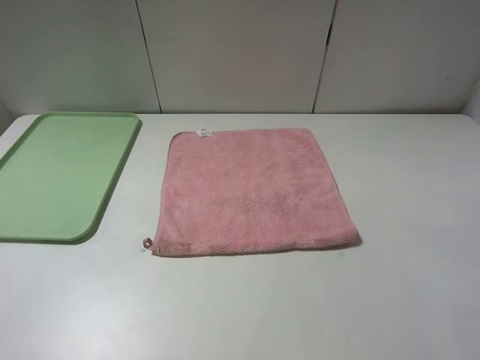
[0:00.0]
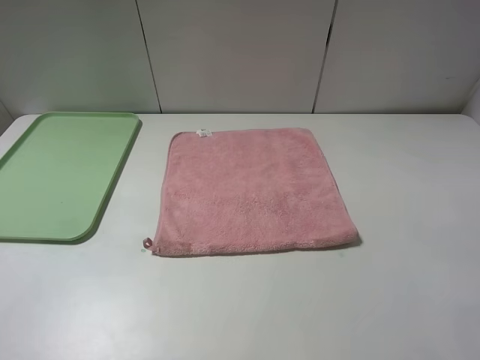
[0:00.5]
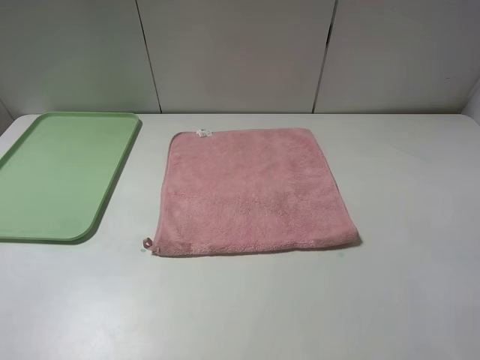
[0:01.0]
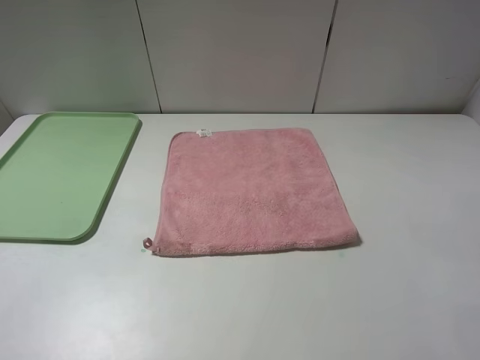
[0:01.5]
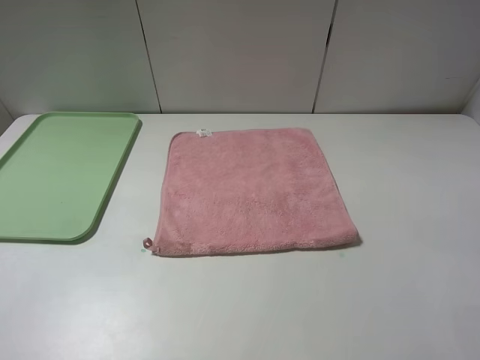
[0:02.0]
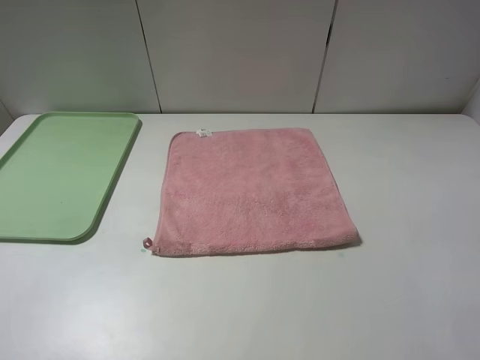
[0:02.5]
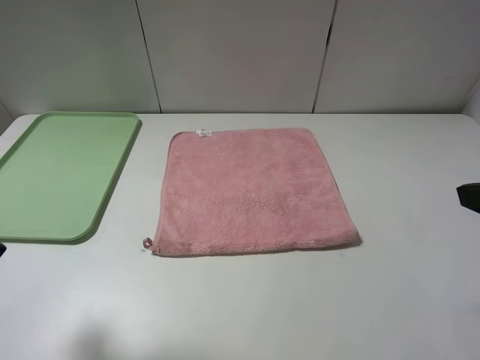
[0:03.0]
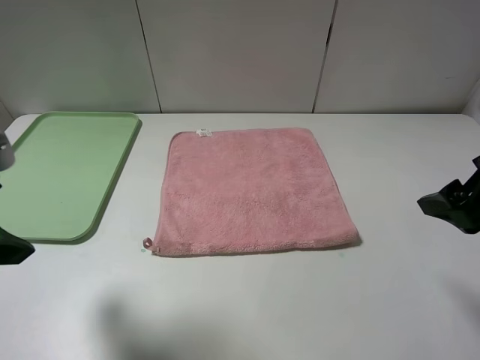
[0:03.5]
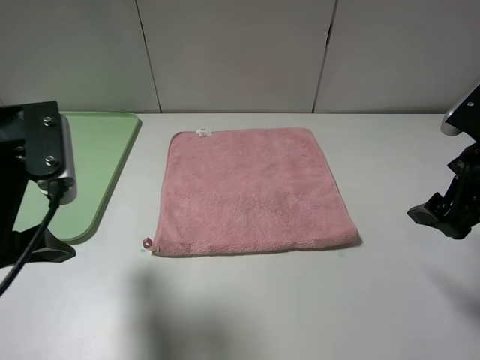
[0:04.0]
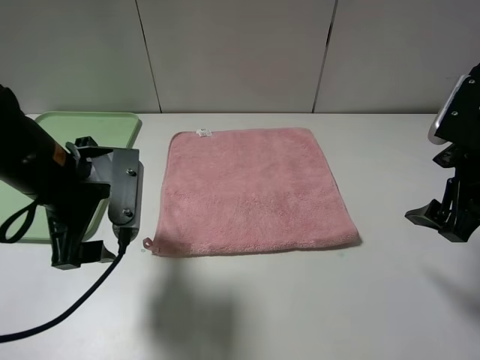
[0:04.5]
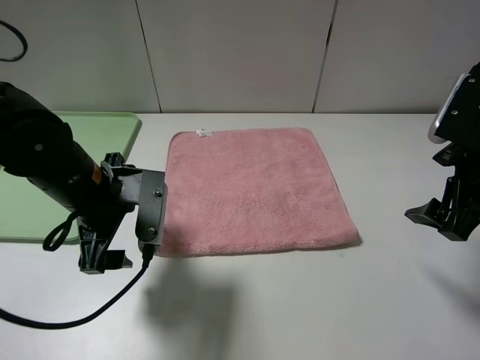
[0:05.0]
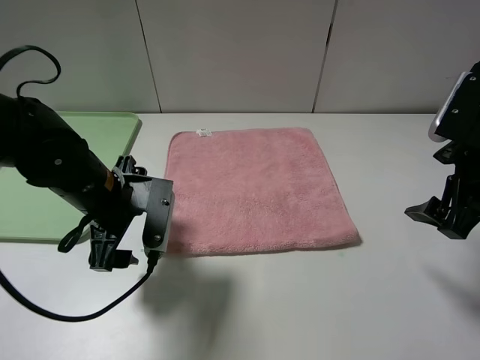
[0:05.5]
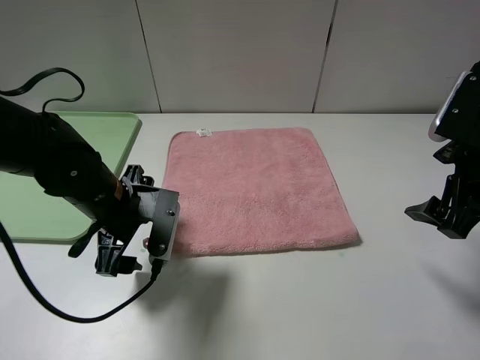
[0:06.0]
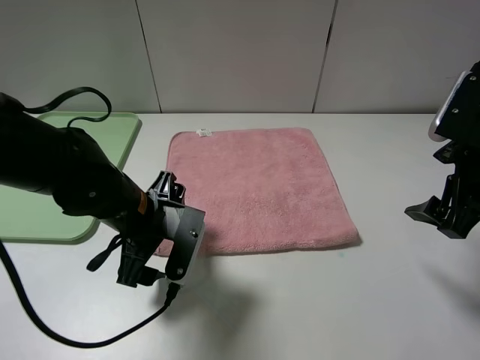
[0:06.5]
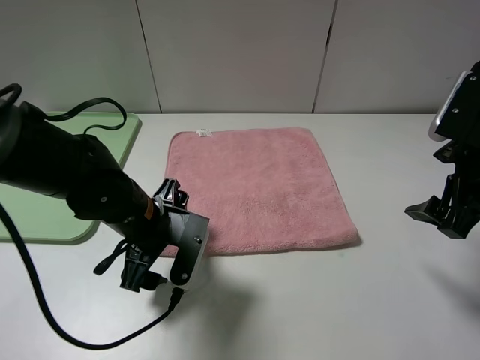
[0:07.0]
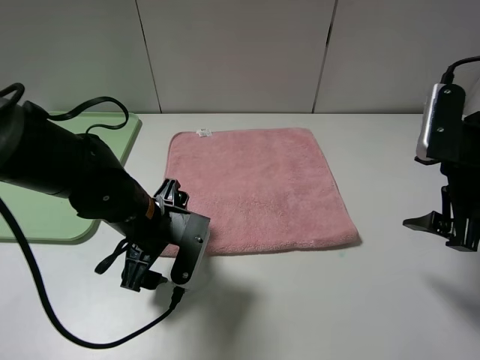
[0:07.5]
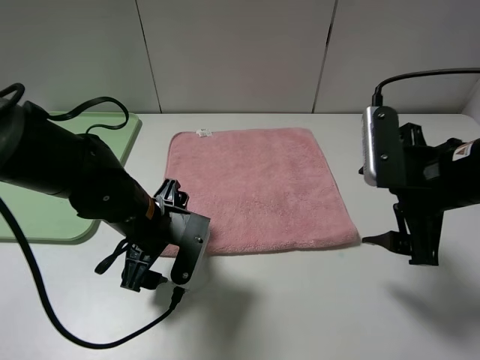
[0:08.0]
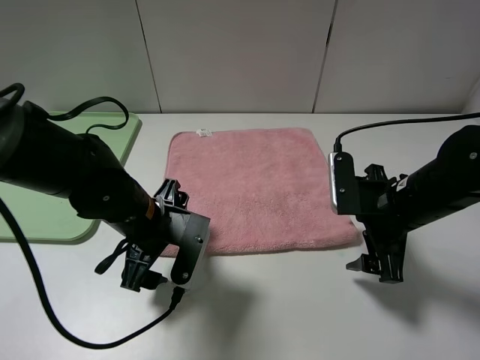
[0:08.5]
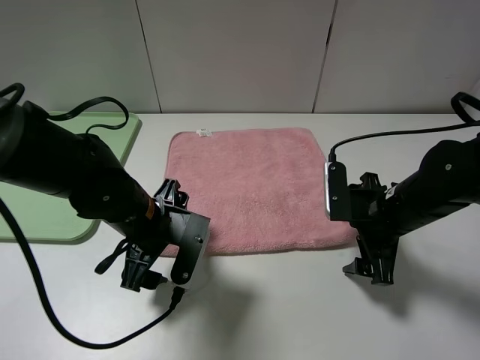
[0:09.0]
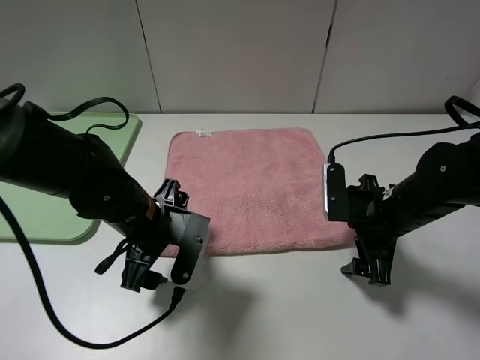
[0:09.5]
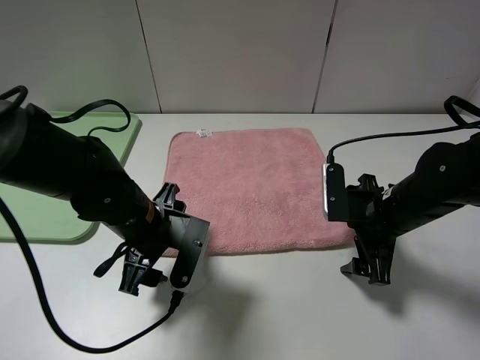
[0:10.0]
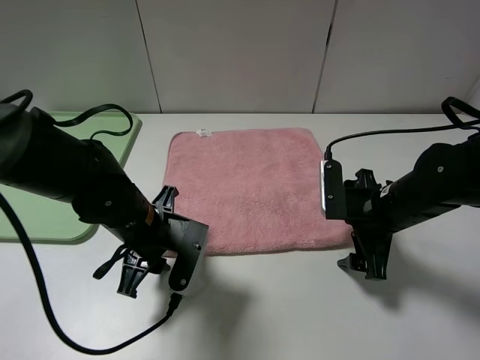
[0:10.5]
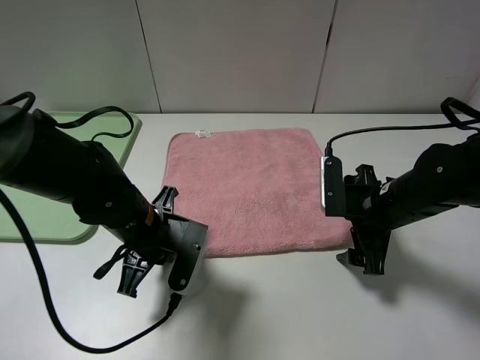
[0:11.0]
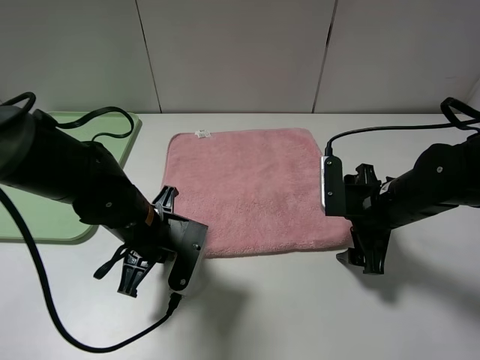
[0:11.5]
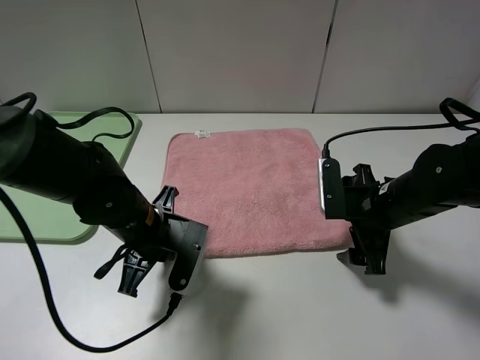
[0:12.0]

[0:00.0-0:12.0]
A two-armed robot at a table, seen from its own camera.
0:02.0 to 0:04.0: The left gripper shifts some 20 cm forward and to the right; the right gripper moves forward, some 20 cm.
0:04.0 to 0:06.0: The left gripper shifts approximately 15 cm downward, to the right and forward.
0:06.0 to 0:08.0: The right gripper heads to the left, covering approximately 5 cm.
0:08.0 to 0:10.0: The right gripper is displaced downward by approximately 10 cm.
0:10.0 to 0:12.0: The left gripper closes its fingers.

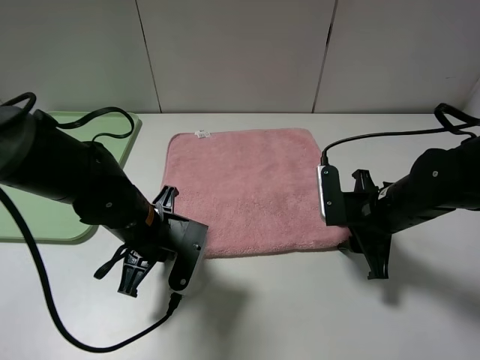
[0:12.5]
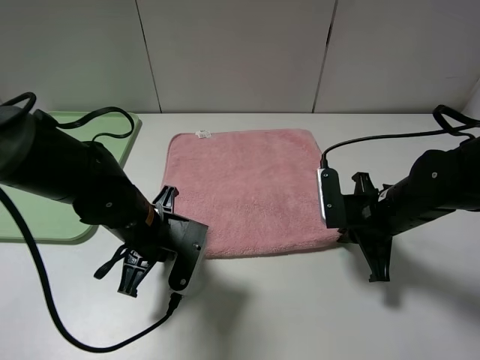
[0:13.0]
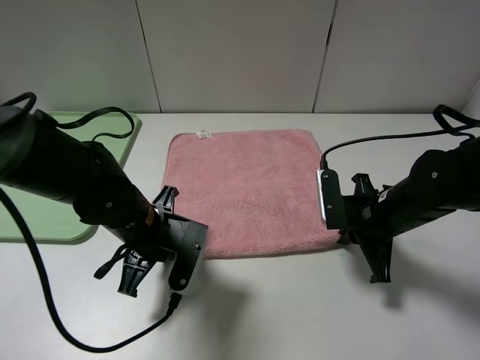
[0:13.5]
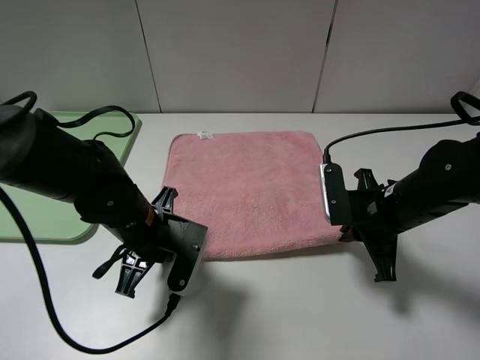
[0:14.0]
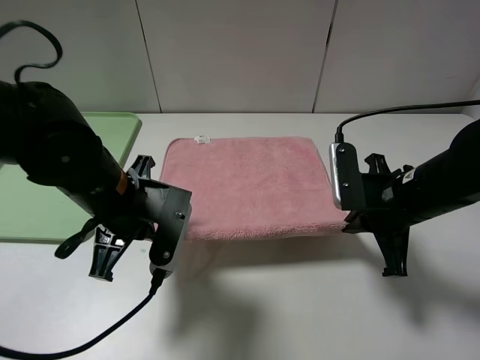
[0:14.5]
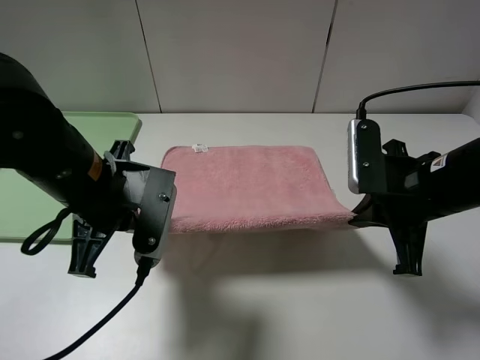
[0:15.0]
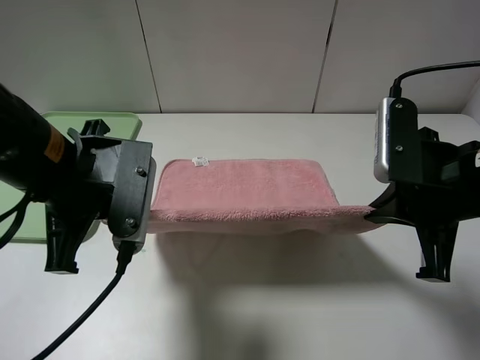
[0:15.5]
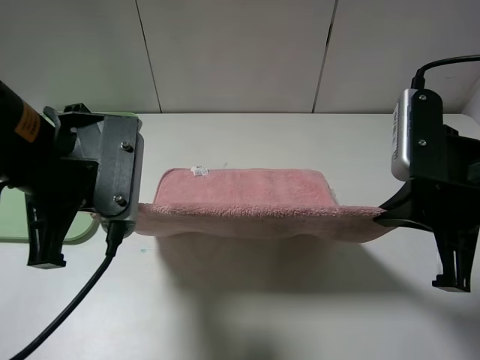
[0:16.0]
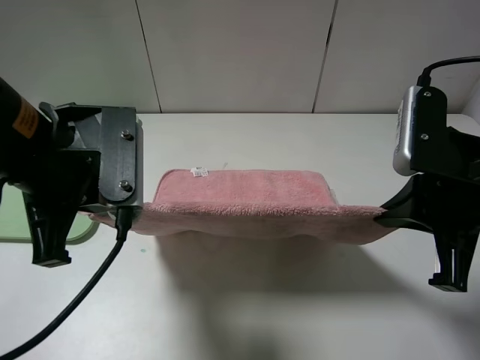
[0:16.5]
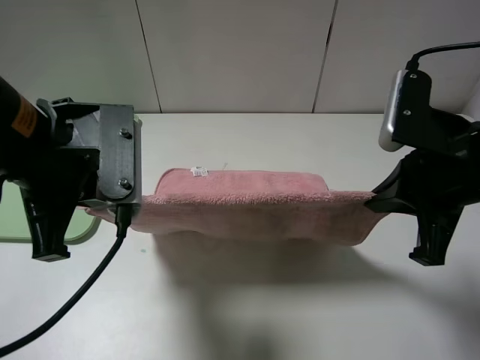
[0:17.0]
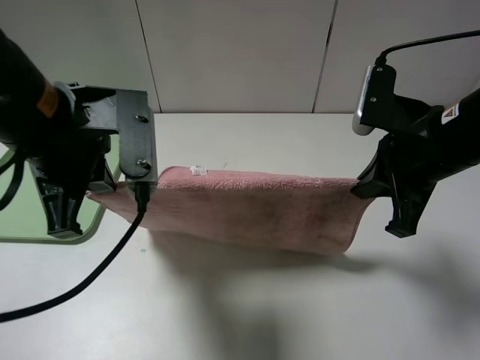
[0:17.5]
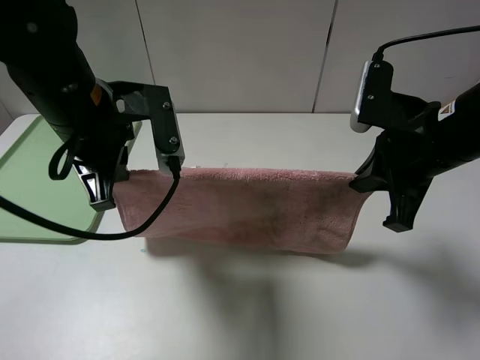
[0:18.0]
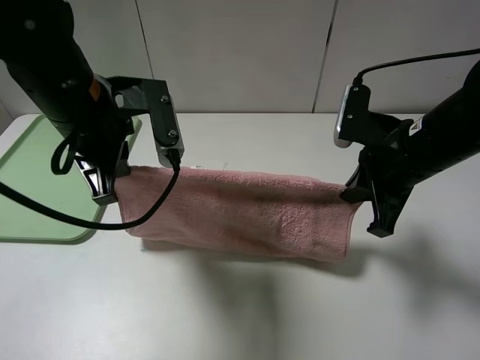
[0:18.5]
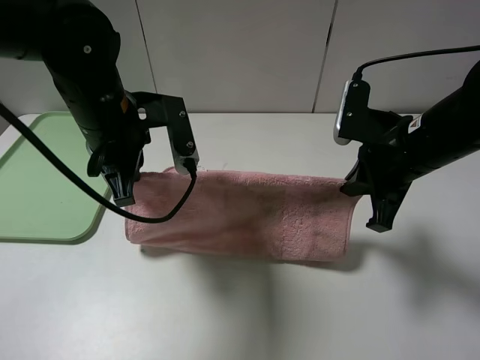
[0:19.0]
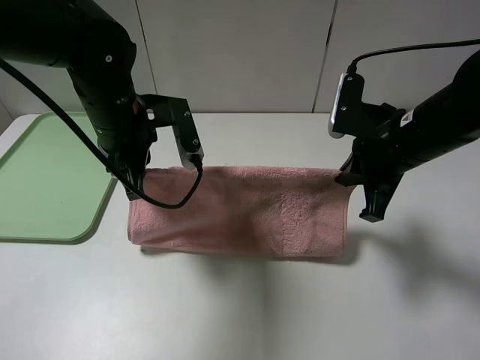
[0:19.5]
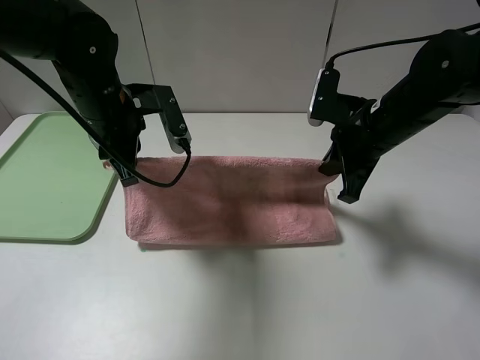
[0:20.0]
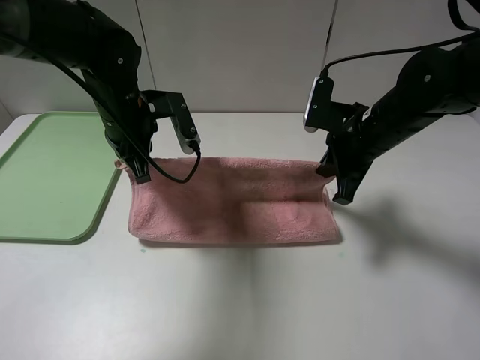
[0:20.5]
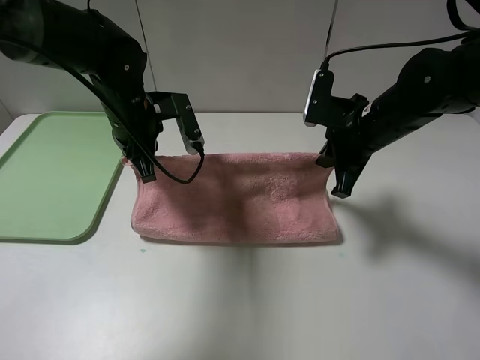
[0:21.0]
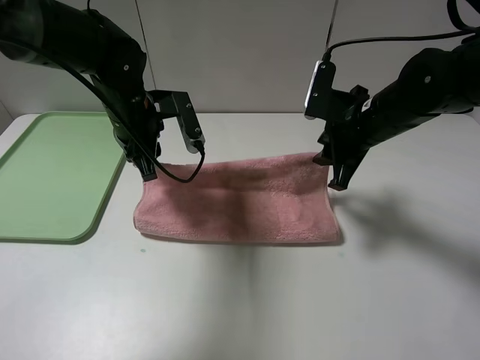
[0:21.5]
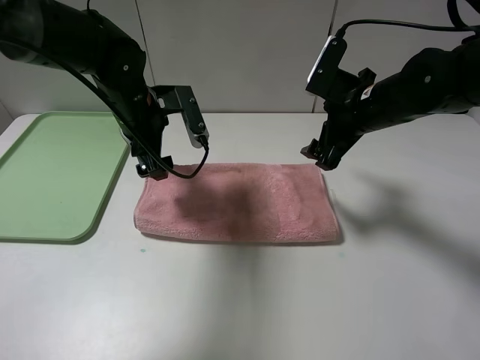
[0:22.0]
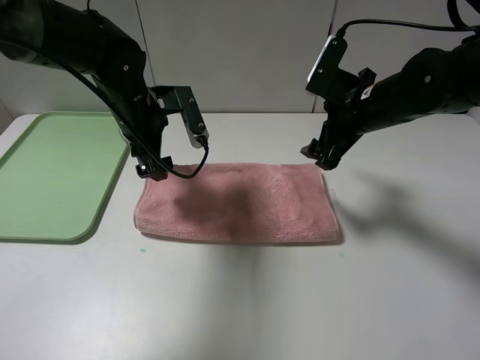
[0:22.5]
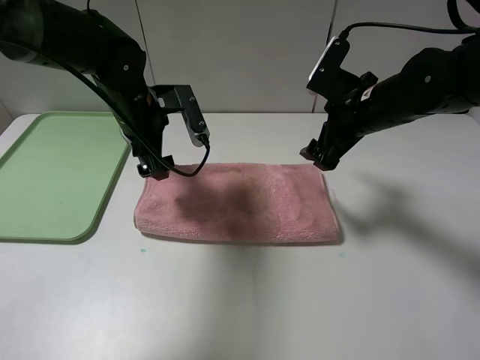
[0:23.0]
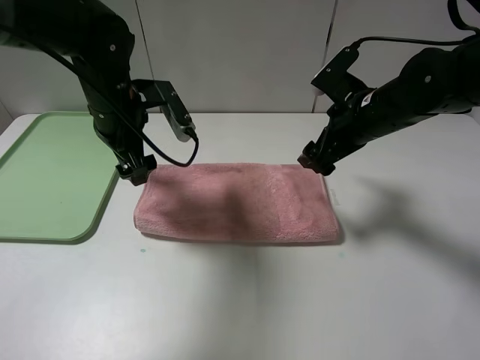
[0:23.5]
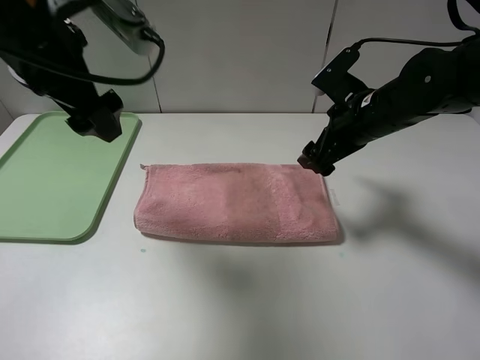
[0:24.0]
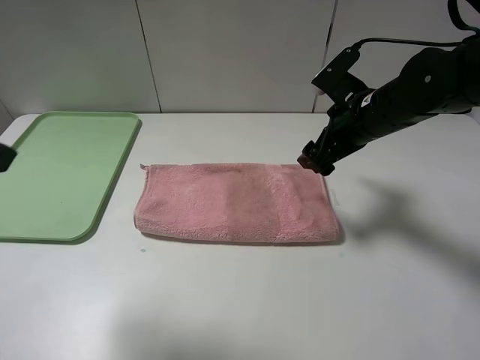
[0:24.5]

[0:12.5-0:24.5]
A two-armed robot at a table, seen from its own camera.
Step, 0:12.5 to 0:22.0: Fold the pink towel upwards.
0:12.5 to 0:14.5: Both grippers move upward, approximately 5 cm. The right gripper closes its fingers.
0:14.5 to 0:16.5: The right gripper heads upward and backward, covering roughly 10 cm. Meanwhile the left gripper goes roughly 10 cm upward.
0:16.5 to 0:18.5: Both grippers move forward, roughly 10 cm.
0:18.5 to 0:20.5: The left gripper is displaced forward and downward by roughly 10 cm. The right gripper heads forward, covering roughly 5 cm.
0:20.5 to 0:22.5: The right gripper opens, while the left gripper opens.
0:22.5 to 0:24.5: The left gripper goes some 35 cm backward, upward and to the left.

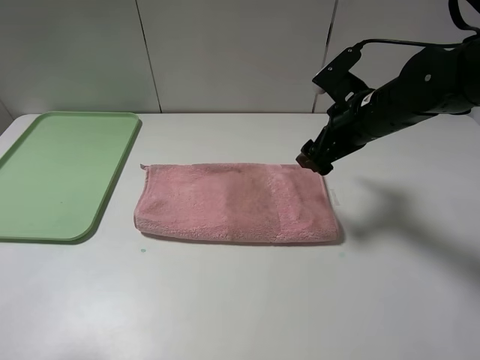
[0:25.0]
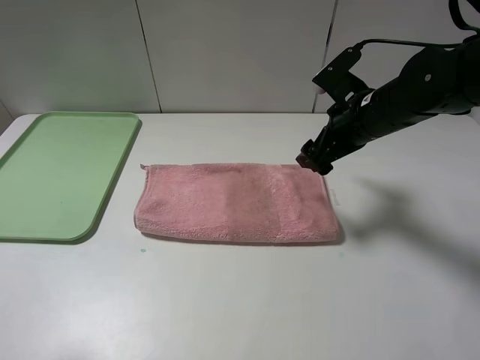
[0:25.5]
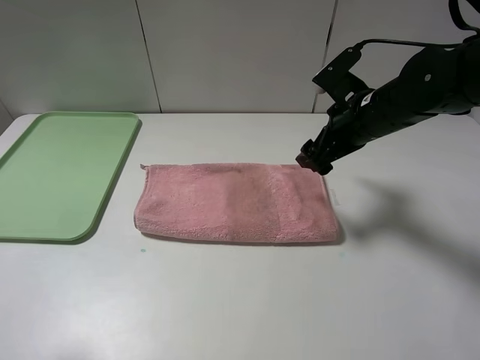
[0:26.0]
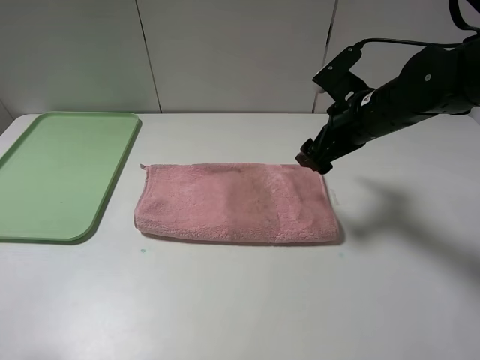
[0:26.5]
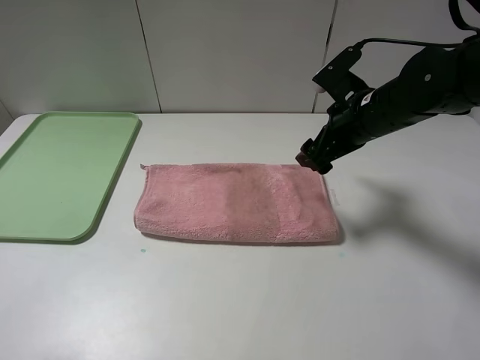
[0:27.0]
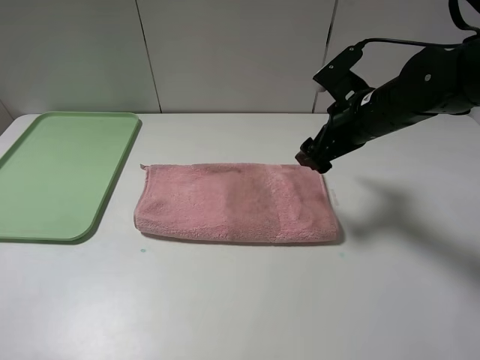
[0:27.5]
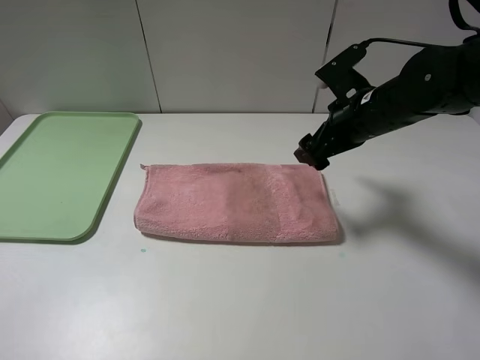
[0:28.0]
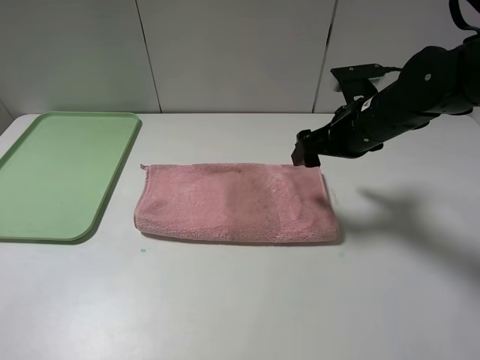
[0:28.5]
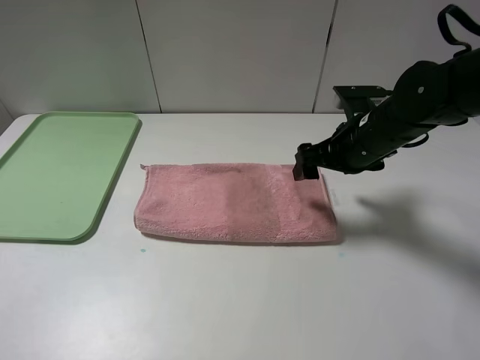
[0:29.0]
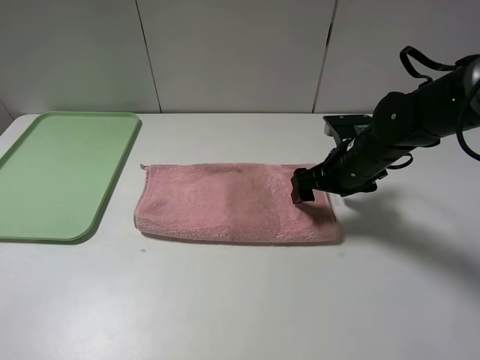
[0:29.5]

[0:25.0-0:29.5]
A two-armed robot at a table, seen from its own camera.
0:27.0 to 0:29.5: The right gripper is displaced downward by about 5 cm.
